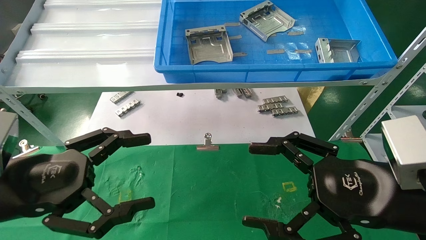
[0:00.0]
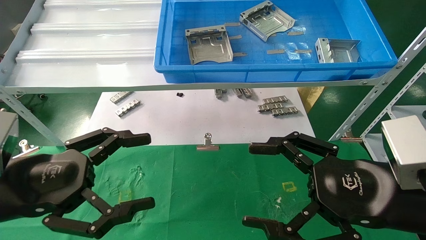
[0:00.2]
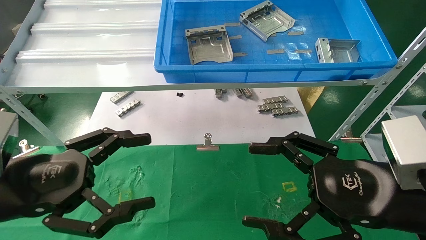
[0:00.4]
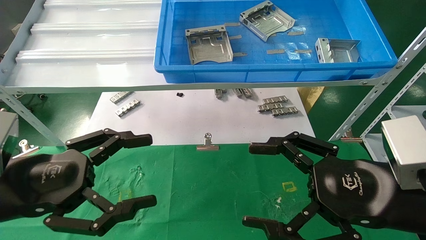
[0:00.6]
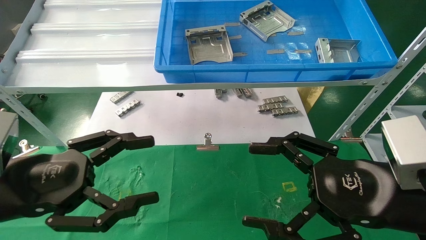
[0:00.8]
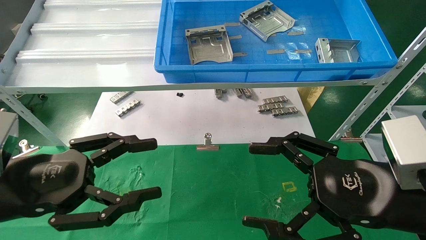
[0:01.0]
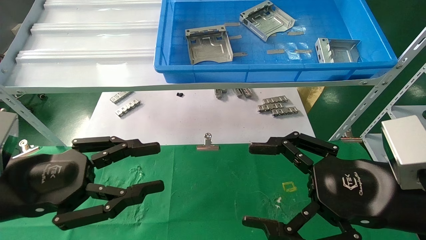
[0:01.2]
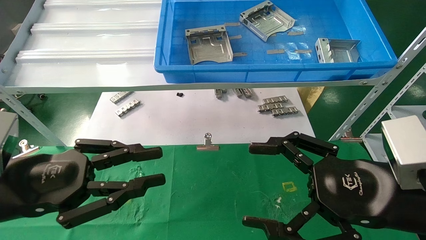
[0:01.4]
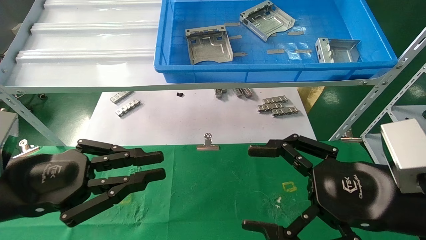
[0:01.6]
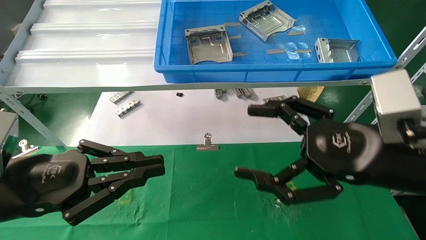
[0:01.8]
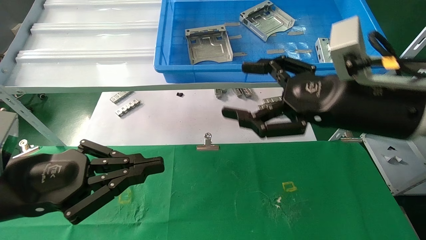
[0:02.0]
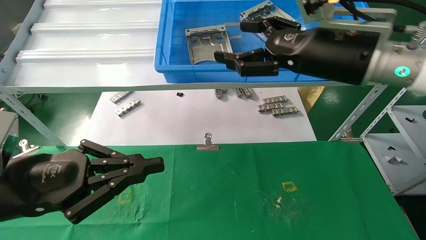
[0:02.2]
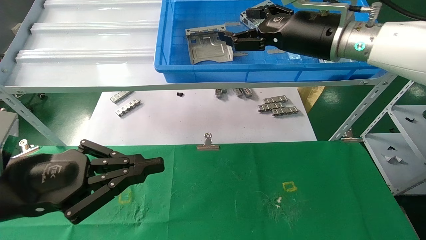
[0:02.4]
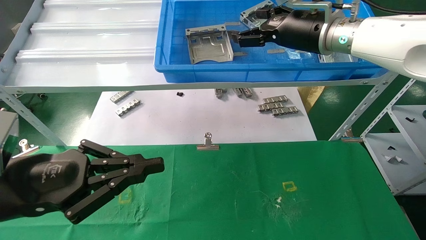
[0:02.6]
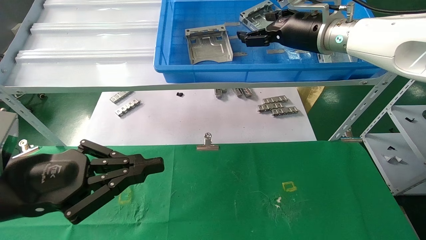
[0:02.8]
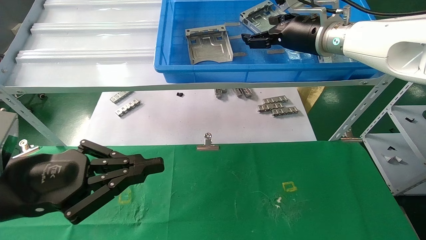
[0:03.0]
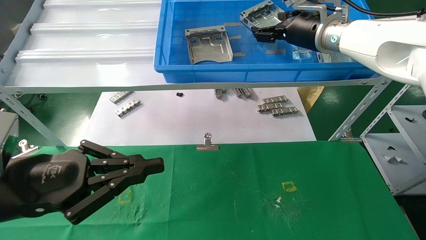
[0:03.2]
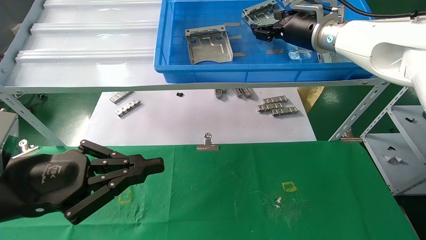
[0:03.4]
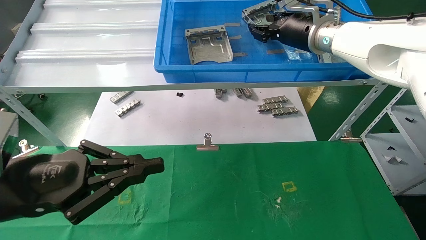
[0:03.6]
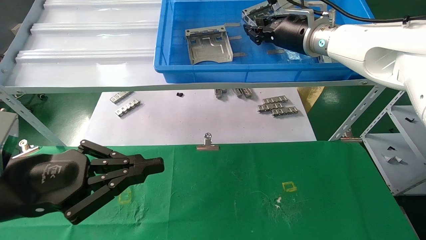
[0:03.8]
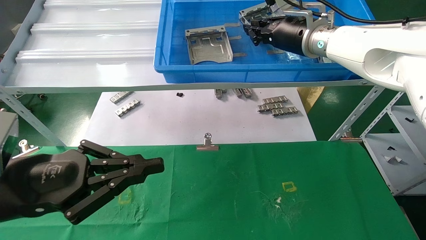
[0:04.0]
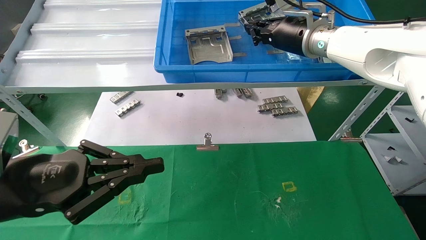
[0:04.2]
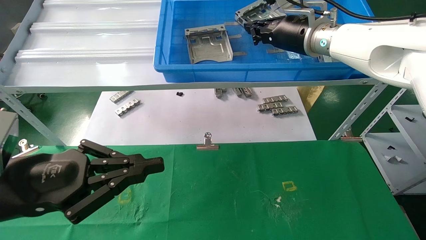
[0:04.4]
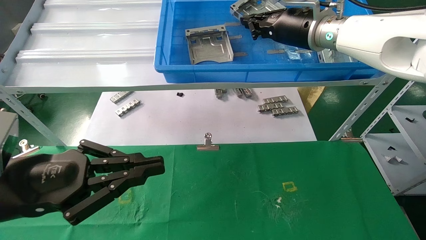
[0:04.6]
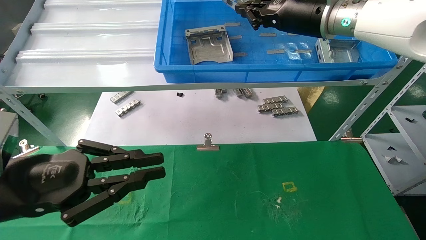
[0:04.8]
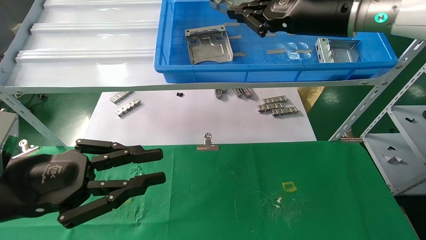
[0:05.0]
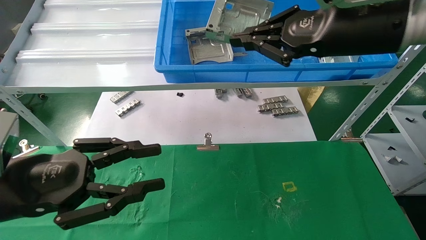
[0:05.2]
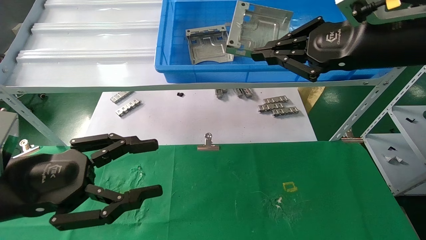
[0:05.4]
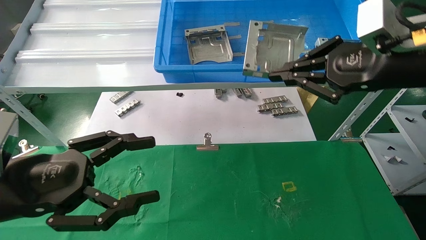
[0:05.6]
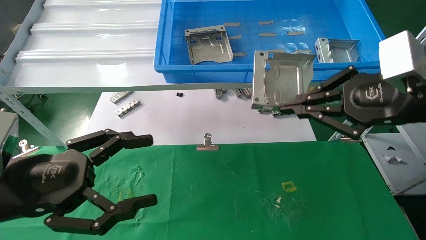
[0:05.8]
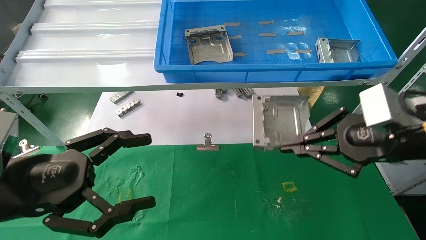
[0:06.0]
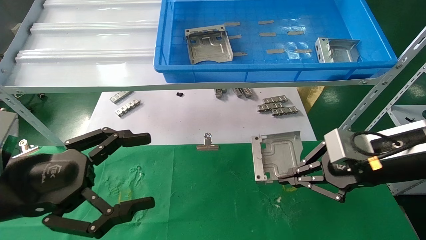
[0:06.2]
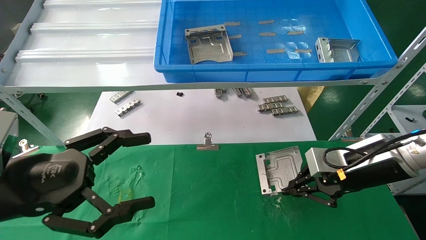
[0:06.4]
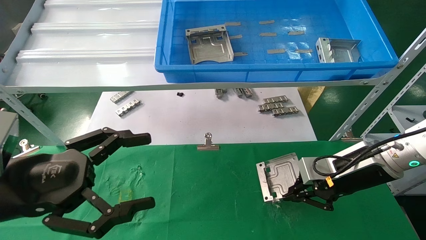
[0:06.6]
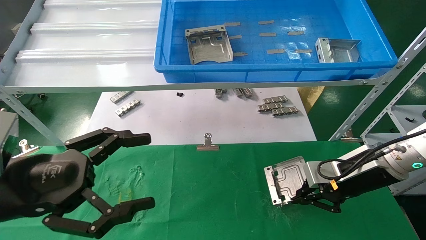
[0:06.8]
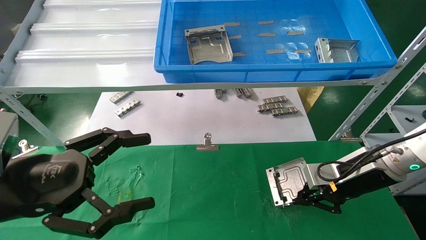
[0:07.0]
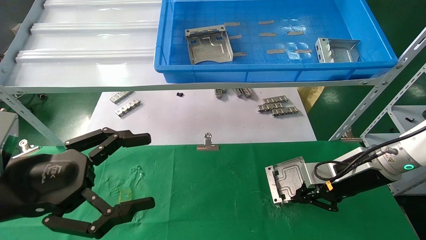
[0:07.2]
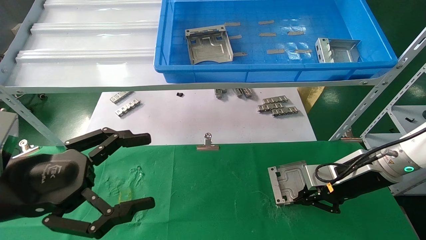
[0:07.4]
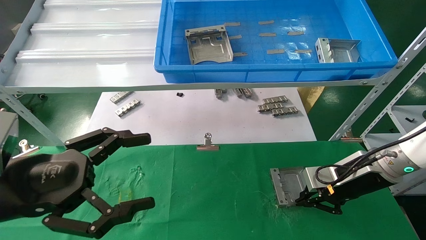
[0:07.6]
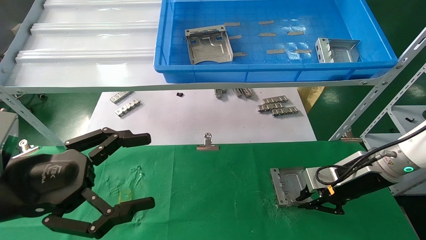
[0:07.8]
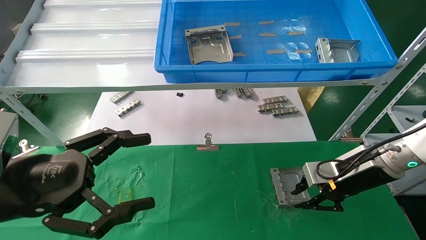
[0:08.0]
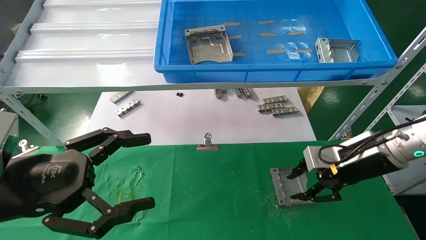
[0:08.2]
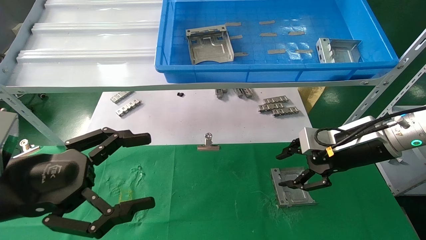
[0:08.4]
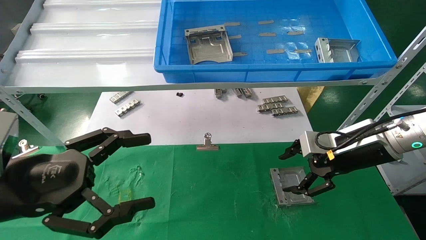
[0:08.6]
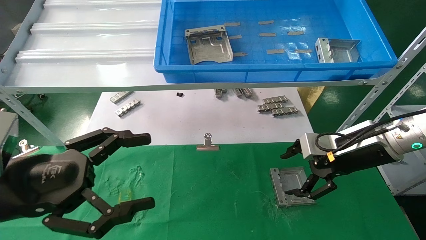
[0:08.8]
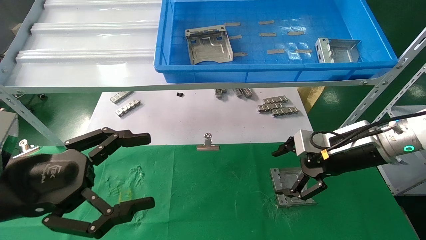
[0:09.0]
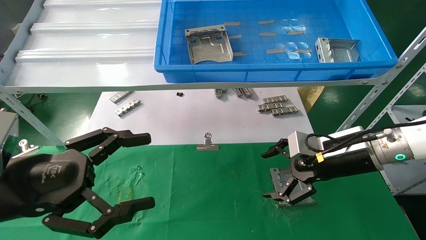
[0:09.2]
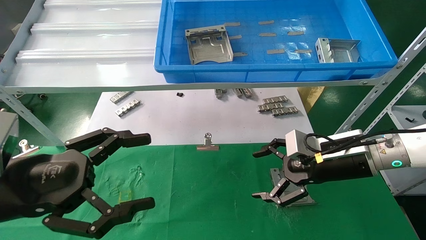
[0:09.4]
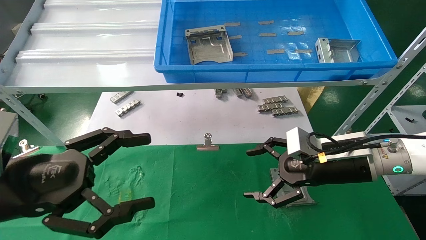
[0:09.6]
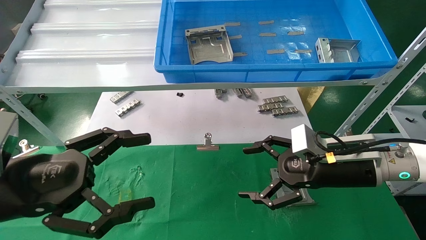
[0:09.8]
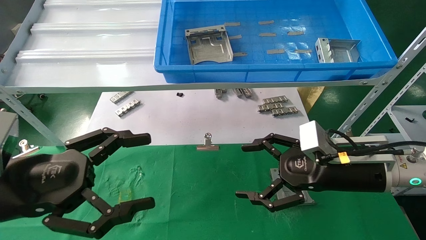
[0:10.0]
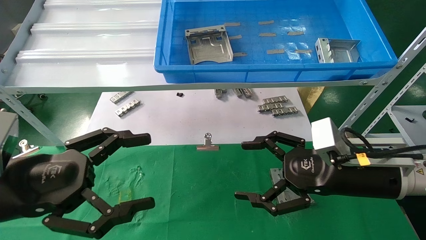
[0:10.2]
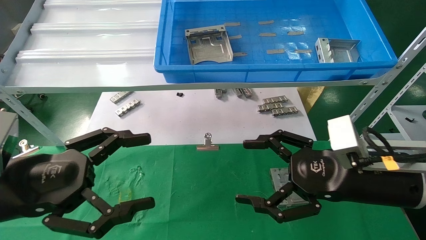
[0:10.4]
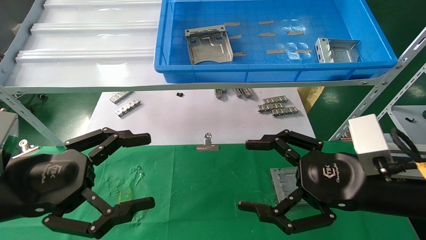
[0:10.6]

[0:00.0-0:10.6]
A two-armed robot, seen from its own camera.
Task of the whole recording: use the mechanical arm to pick up the parts and place them on the table.
Step, 0:01.4 to 0:05.0: Pick up the hard drive bracket from the feeding area.
Step, 0:05.2 to 0:08.4: Place the hard drive bracket into the box.
0:00.0 to 0:01.6: The left gripper closes its fingers.
0:01.6 to 0:03.0: The right gripper heads forward and upward, covering roughly 30 cm.
0:03.0 to 0:04.6: The right gripper closes its fingers.
0:04.6 to 0:06.0: The right gripper is displaced backward, downward and to the right by about 25 cm; the left gripper opens its fingers.
0:06.0 to 0:07.6: The right gripper travels downward and forward by approximately 15 cm.
0:07.6 to 0:09.0: The right gripper moves approximately 5 cm, and opens up.
0:09.0 to 0:10.6: The right gripper travels backward by some 15 cm.
